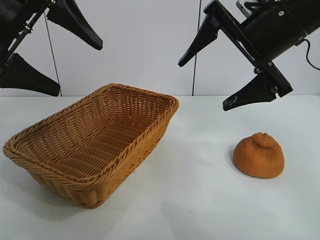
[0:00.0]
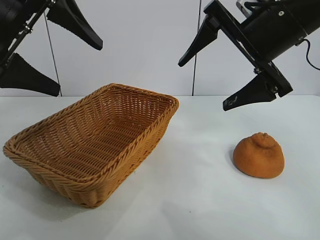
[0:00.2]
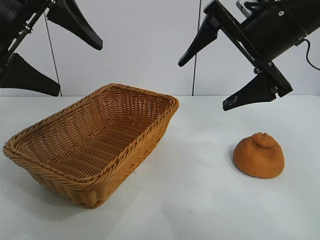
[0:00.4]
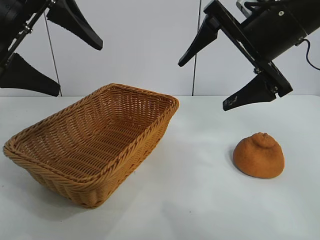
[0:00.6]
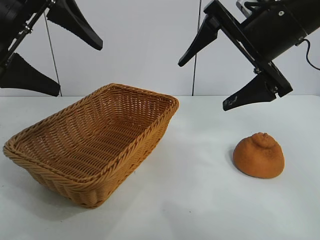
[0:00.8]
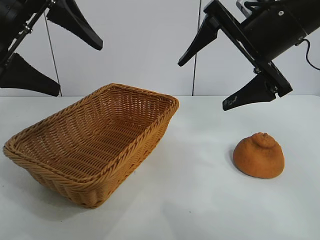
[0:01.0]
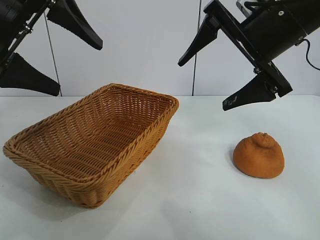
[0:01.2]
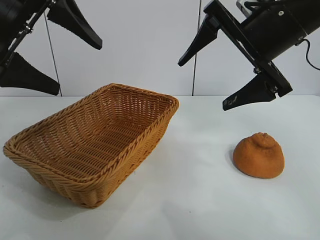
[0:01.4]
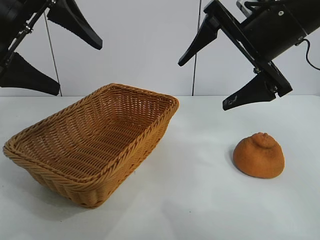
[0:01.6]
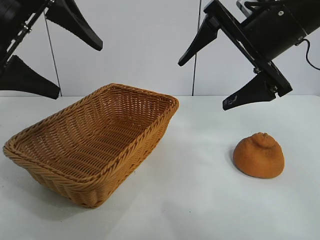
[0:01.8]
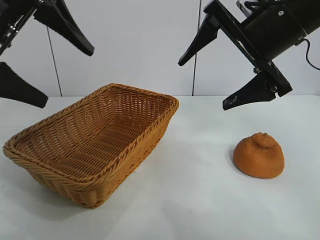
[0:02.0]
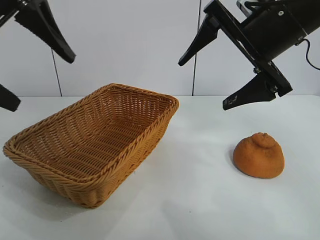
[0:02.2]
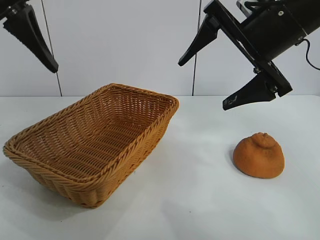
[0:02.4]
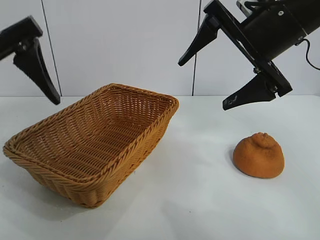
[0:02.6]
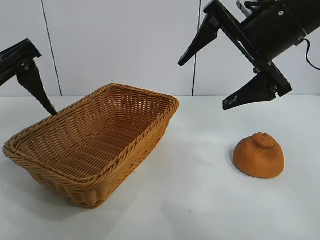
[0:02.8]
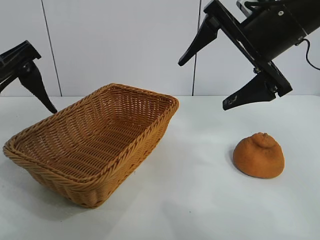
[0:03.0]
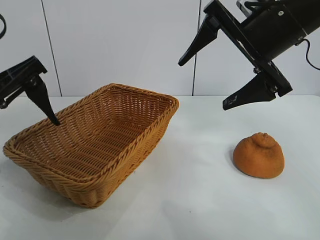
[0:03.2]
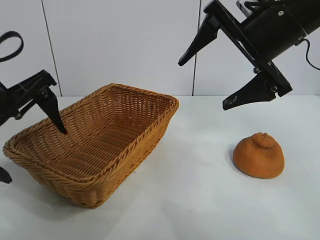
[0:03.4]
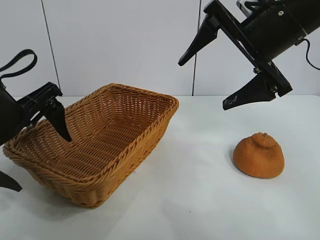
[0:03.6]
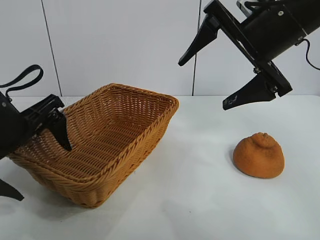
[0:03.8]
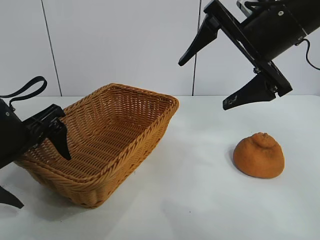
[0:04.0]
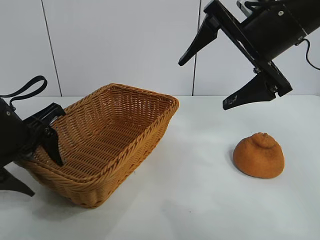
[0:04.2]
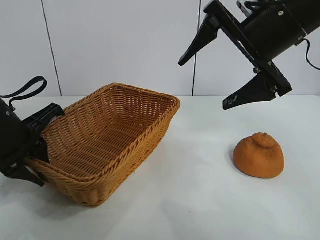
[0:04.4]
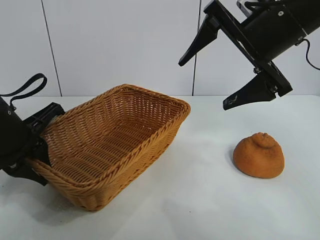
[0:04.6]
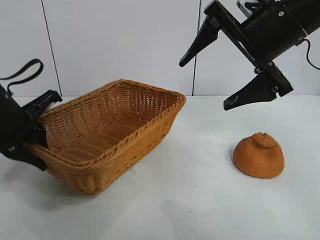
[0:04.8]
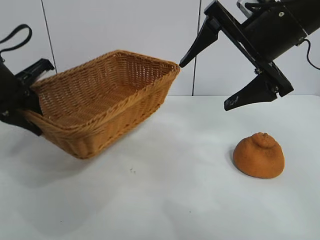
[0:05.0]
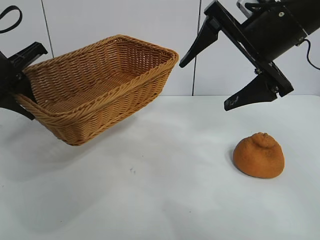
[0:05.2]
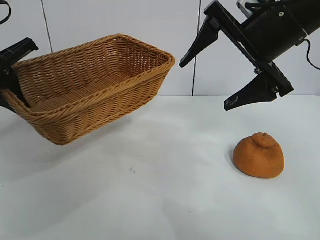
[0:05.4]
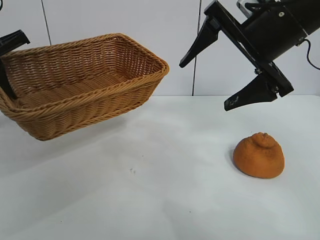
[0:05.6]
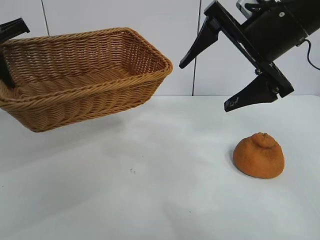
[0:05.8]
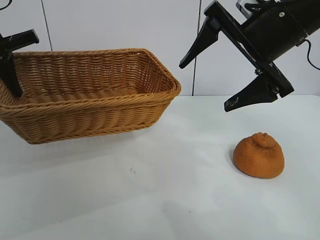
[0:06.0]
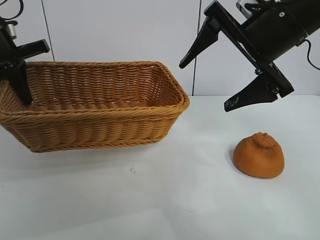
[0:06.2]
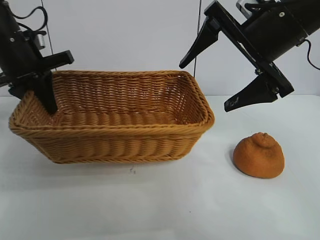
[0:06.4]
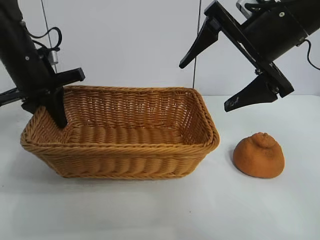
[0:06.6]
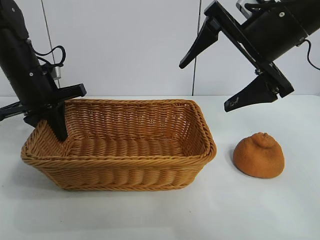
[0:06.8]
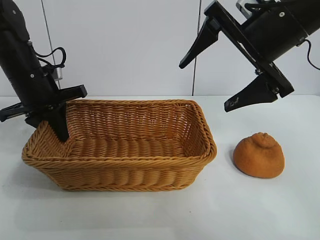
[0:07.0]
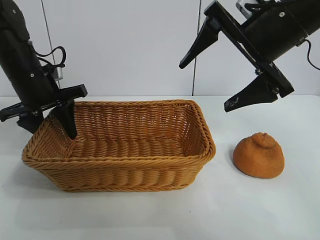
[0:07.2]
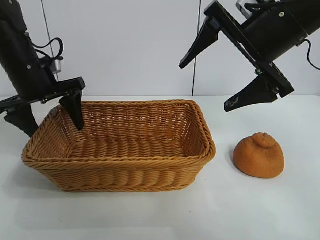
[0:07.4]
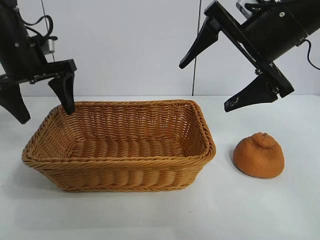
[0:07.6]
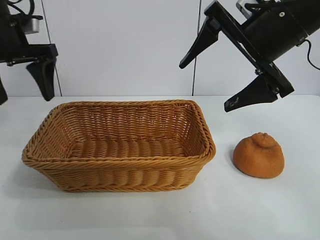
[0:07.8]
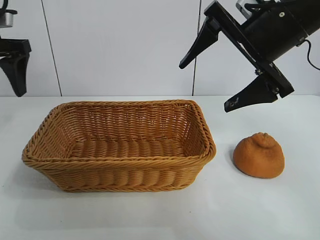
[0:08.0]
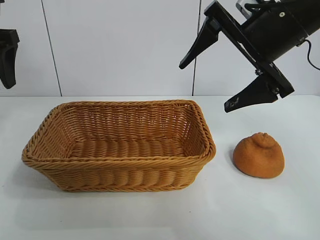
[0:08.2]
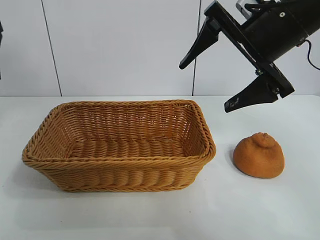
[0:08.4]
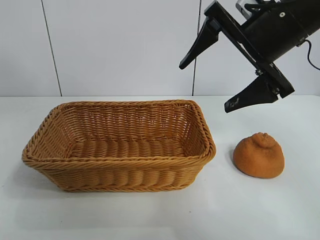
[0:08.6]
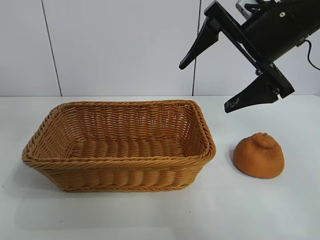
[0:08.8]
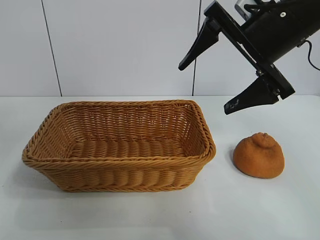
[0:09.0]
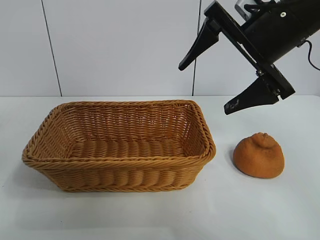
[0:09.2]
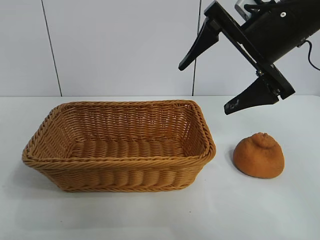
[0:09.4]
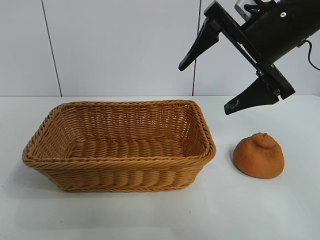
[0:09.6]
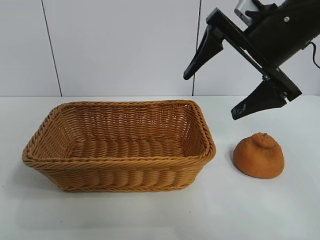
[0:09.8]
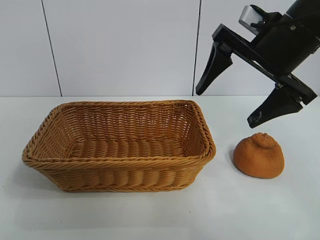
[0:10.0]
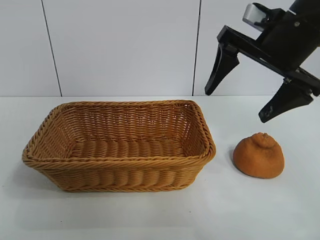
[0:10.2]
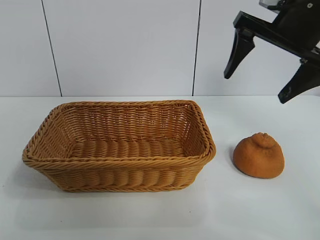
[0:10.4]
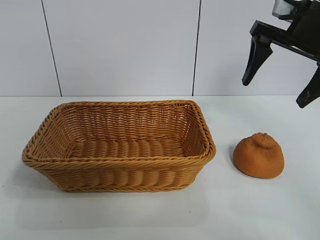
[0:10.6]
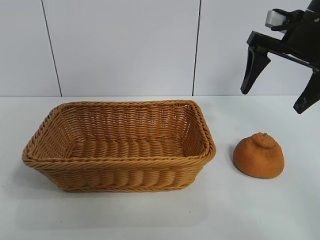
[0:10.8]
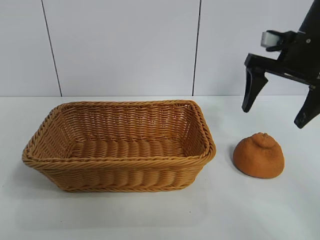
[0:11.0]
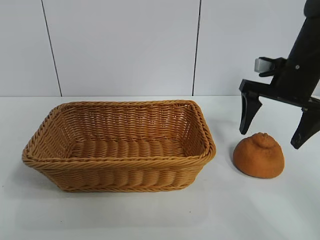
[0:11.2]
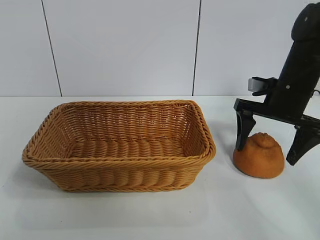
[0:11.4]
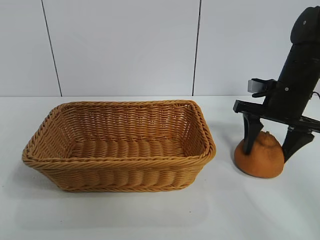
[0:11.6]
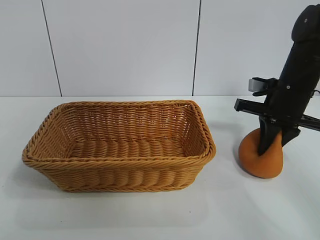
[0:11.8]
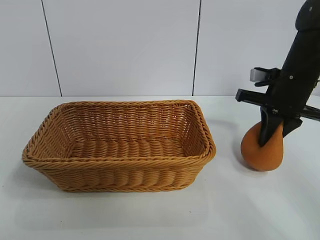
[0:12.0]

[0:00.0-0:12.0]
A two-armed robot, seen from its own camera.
Task of the whole recording: pick up the orange and put it into the basket.
Step, 0:01.6 to 0:04.4: Grasp the basket with left gripper.
Step, 0:04.6 to 0:07.4: Place the basket in the center of view with left gripper.
Step, 0:07.6 to 0:12.0: Grasp the orange with right gripper.

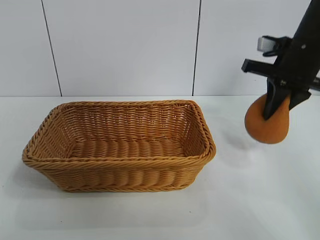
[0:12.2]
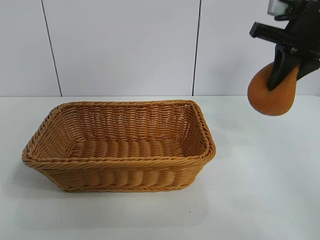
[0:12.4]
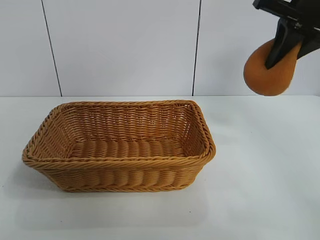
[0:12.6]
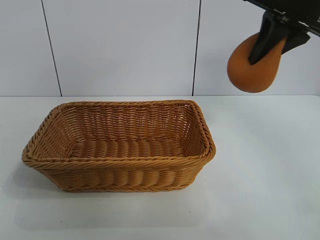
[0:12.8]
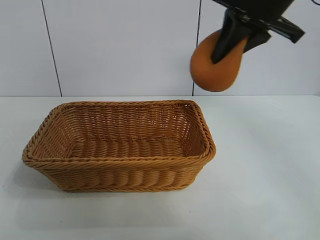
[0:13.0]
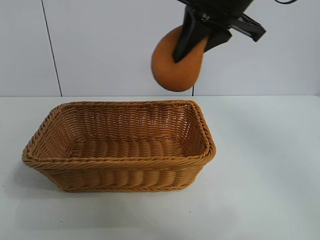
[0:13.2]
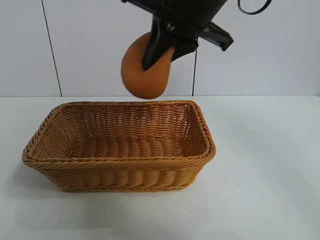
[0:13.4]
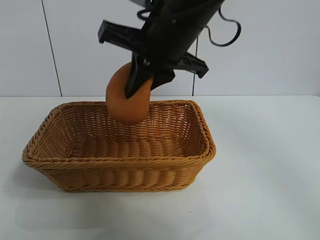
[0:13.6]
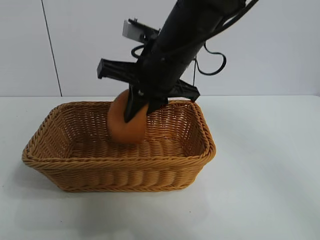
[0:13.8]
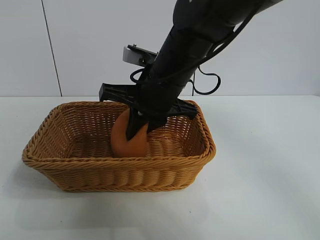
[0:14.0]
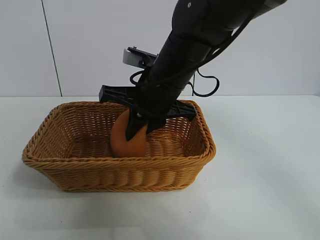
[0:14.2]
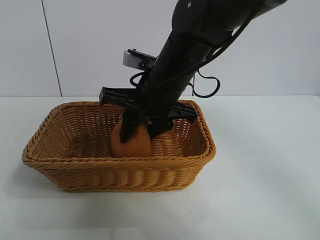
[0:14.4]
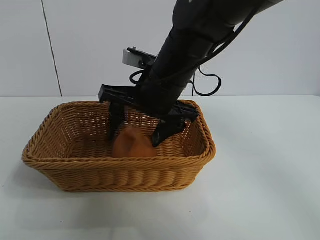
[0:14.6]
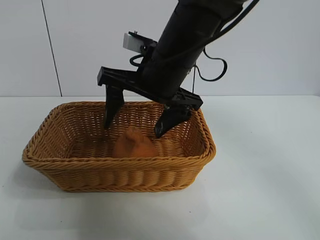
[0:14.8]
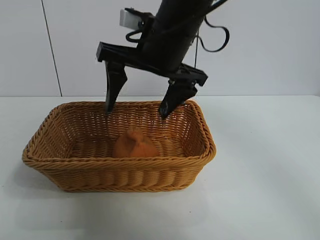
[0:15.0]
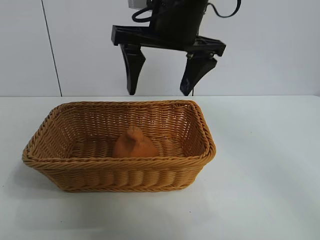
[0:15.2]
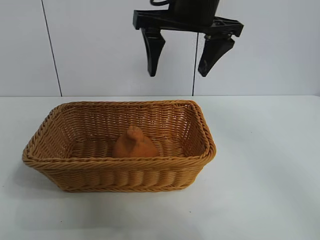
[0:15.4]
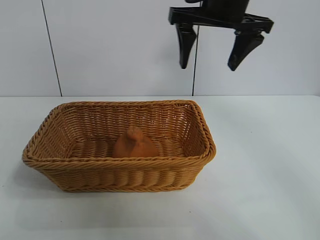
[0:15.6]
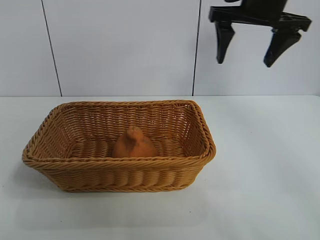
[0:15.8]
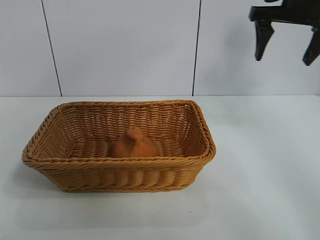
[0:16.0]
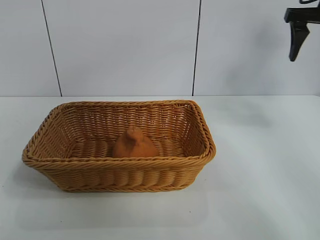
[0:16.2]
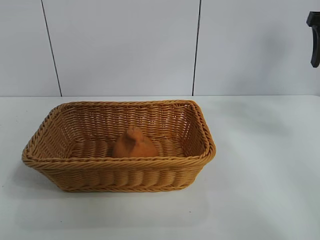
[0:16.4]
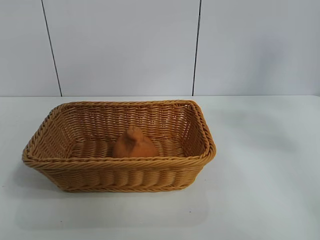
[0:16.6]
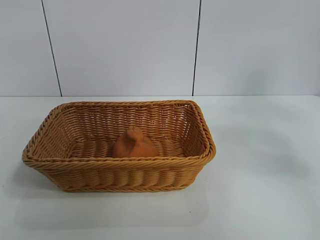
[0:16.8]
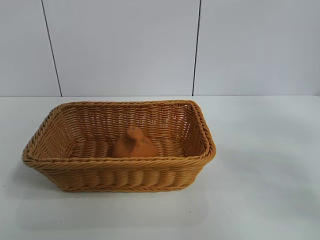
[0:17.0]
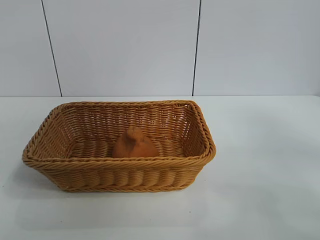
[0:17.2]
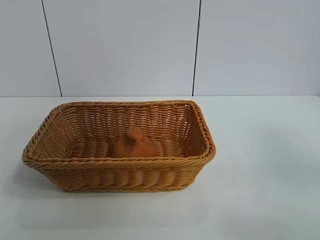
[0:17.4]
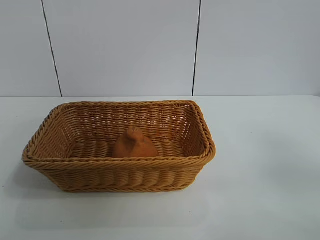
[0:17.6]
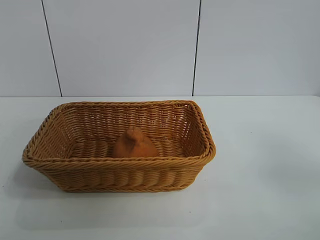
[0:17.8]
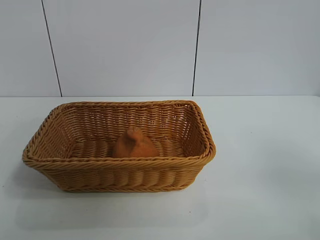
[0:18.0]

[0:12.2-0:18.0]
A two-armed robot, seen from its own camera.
Task of the whole recording: pick up the orange and put it into the basket.
Step, 0:12.2 to 0:14.6: Place the orange in the basket with right gripper.

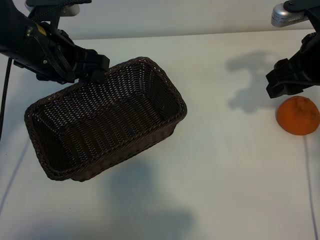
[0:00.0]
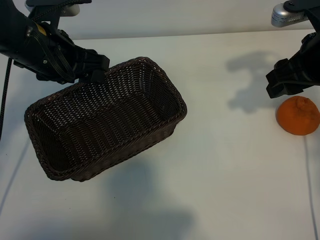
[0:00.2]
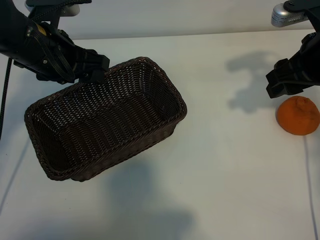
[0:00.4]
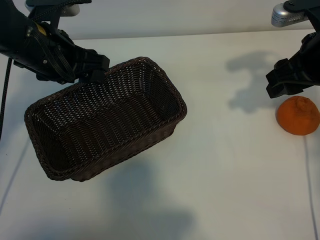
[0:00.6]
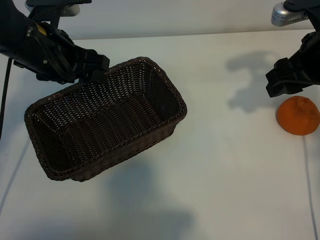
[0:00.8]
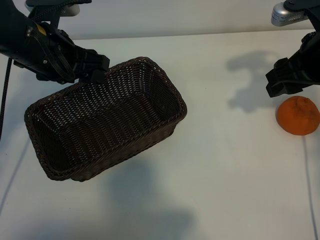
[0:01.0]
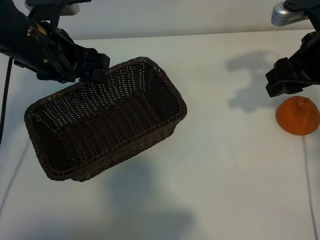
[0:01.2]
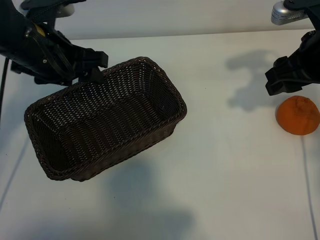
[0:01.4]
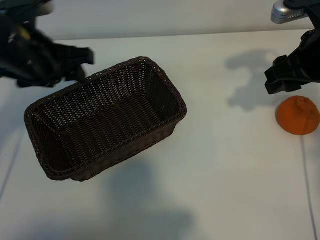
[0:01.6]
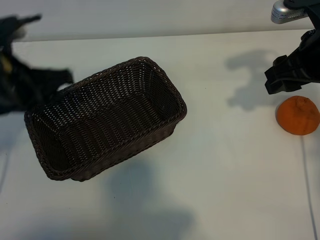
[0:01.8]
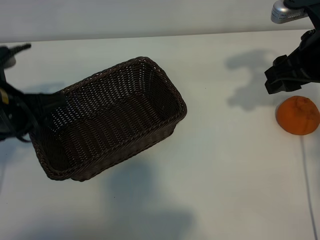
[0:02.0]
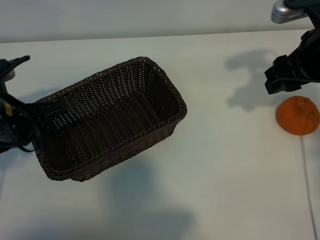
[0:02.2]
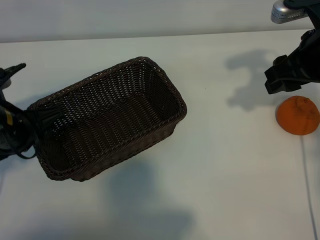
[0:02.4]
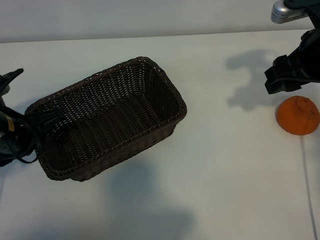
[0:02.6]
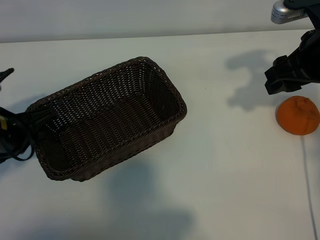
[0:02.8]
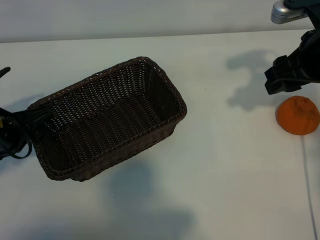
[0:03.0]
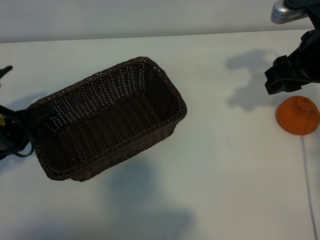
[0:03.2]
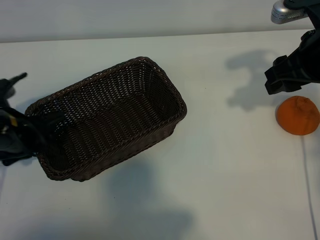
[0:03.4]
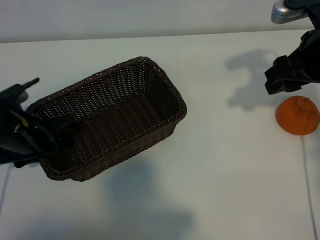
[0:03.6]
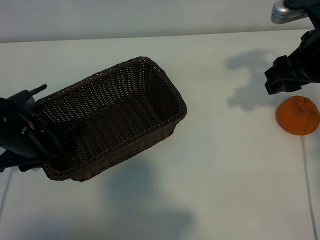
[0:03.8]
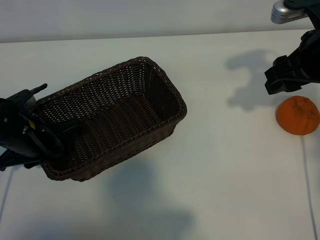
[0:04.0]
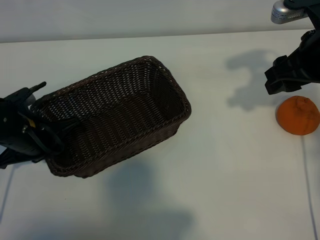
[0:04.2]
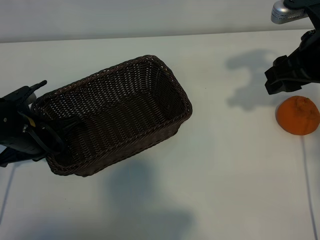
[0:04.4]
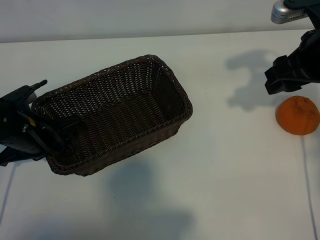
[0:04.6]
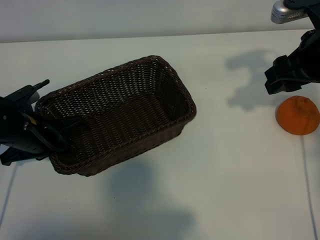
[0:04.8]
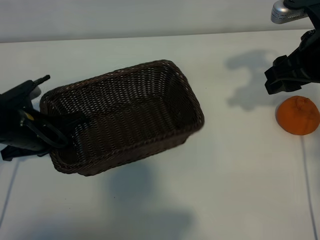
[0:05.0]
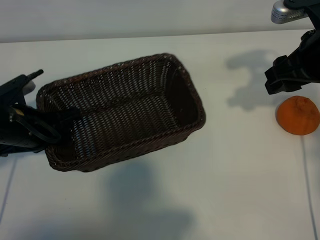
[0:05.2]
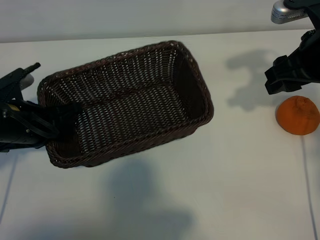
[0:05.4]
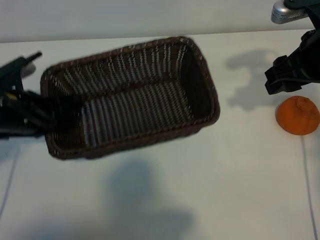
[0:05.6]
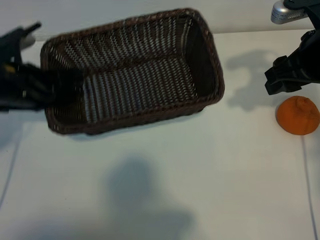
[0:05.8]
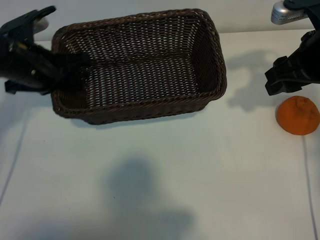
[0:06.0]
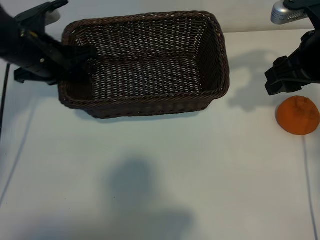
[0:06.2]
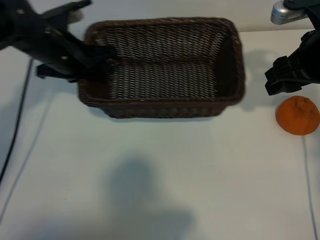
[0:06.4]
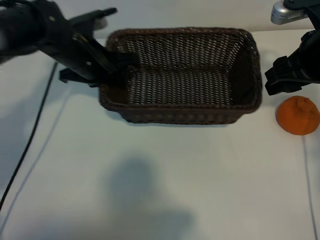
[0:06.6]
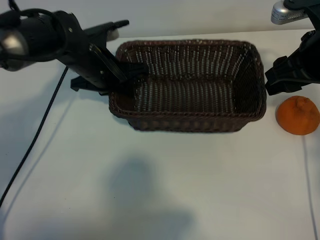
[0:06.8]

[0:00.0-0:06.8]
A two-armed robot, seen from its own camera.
Task of the whole recording: pick up the orange and put it into the basket.
Step, 0:01.2 to 0:04.2: Grasp the basket with left gripper.
